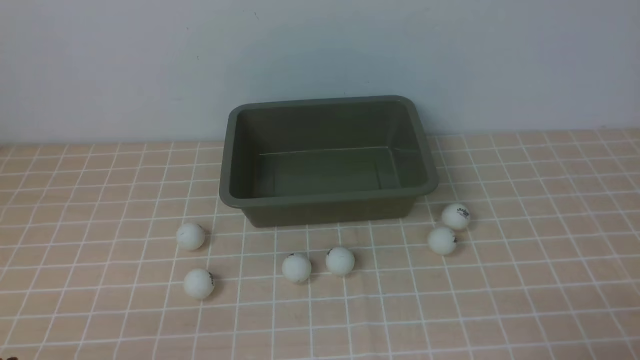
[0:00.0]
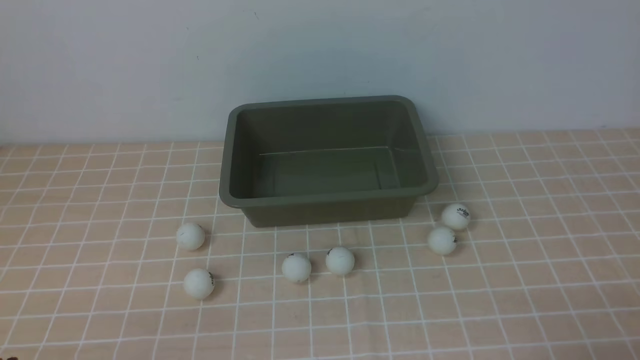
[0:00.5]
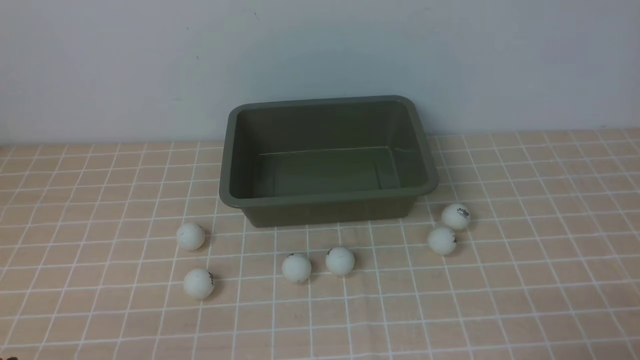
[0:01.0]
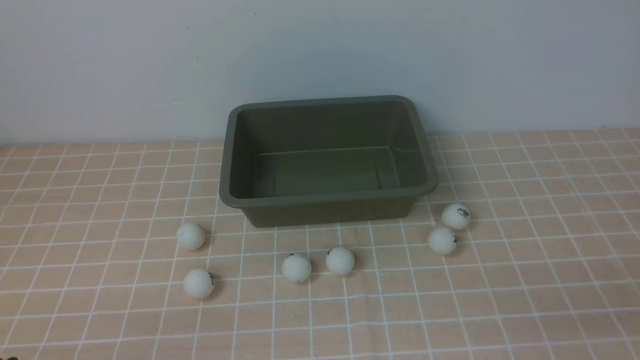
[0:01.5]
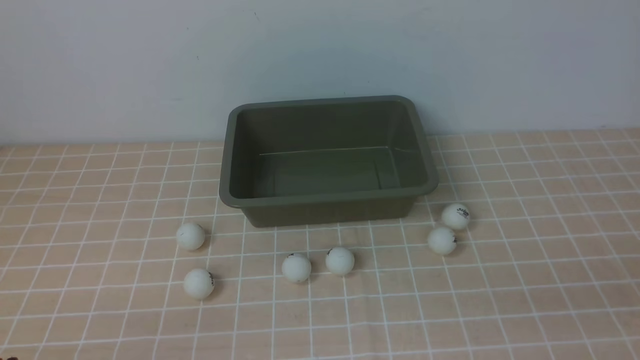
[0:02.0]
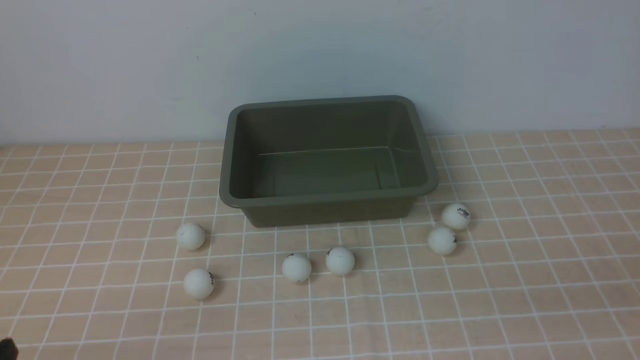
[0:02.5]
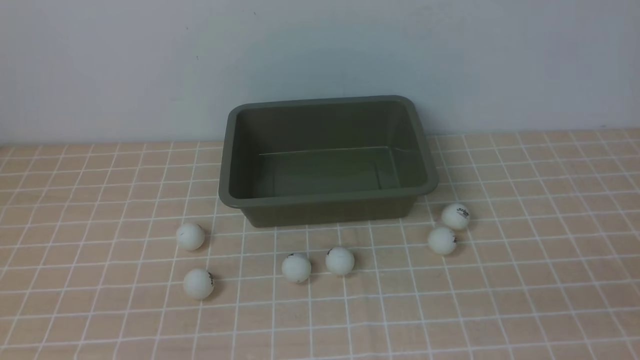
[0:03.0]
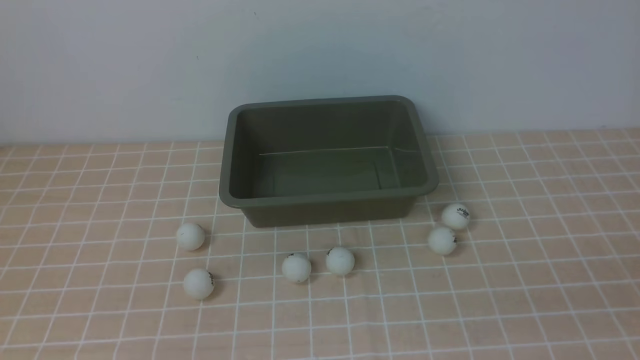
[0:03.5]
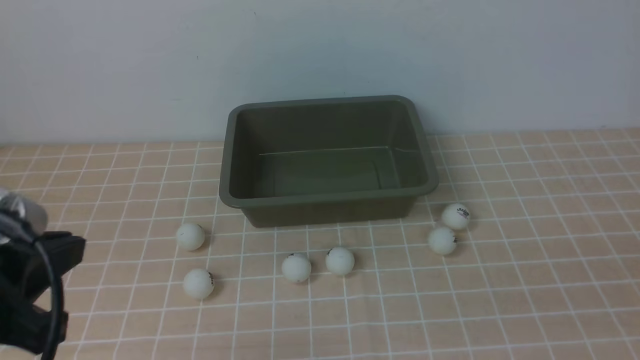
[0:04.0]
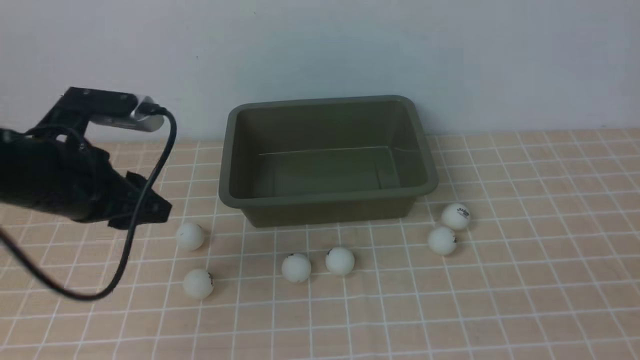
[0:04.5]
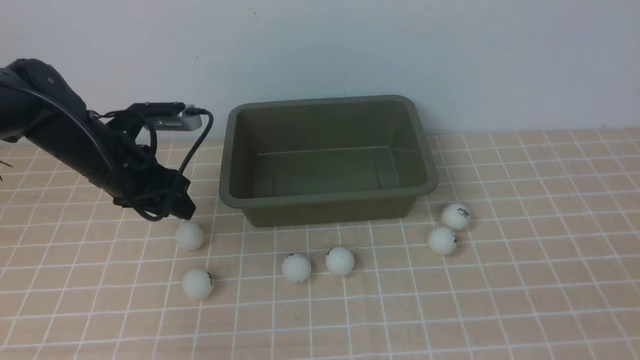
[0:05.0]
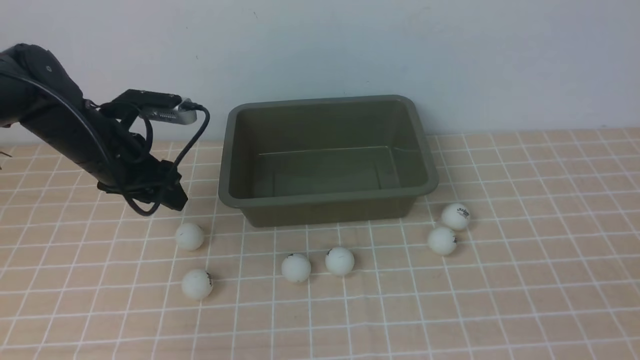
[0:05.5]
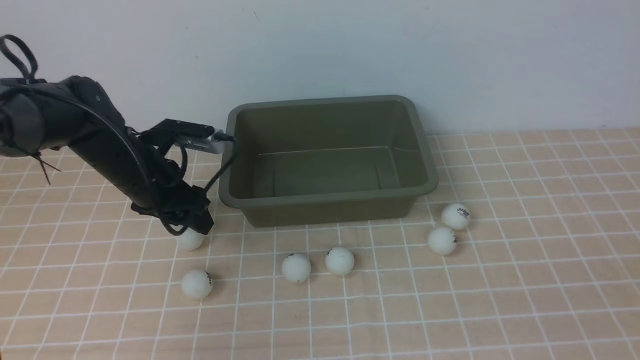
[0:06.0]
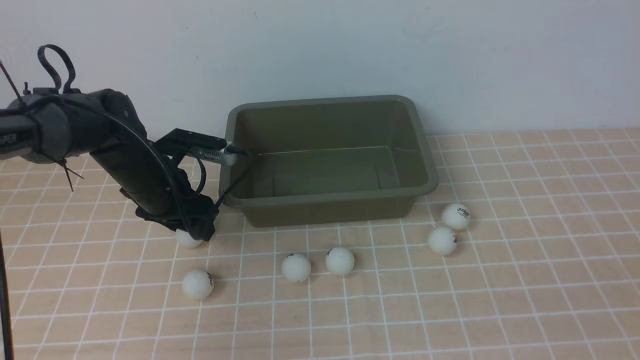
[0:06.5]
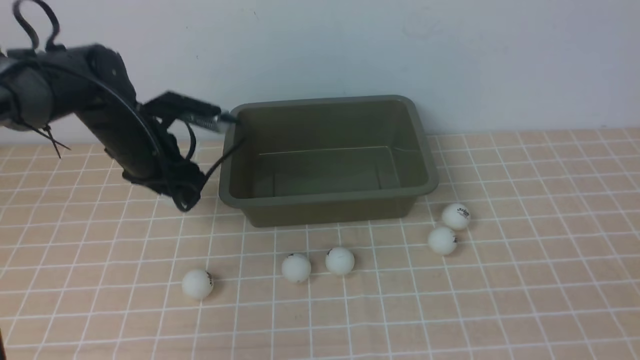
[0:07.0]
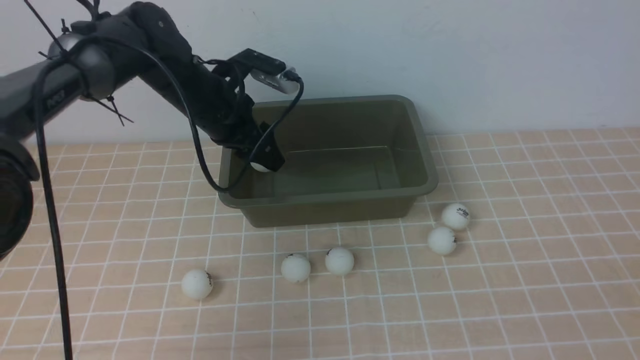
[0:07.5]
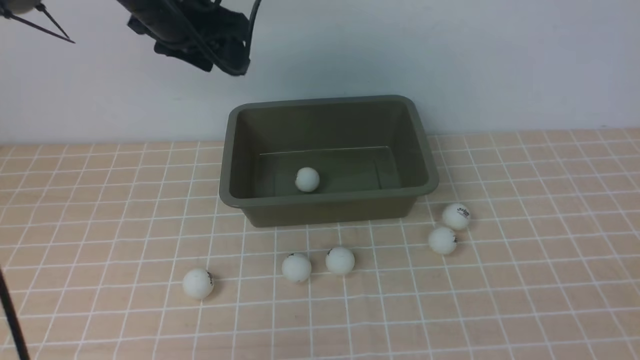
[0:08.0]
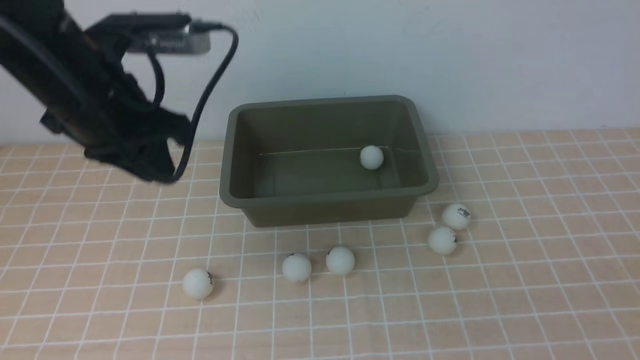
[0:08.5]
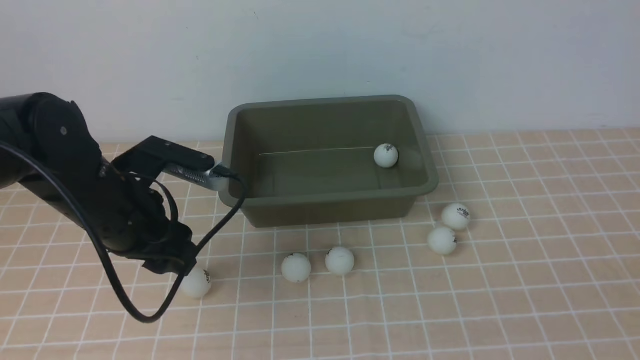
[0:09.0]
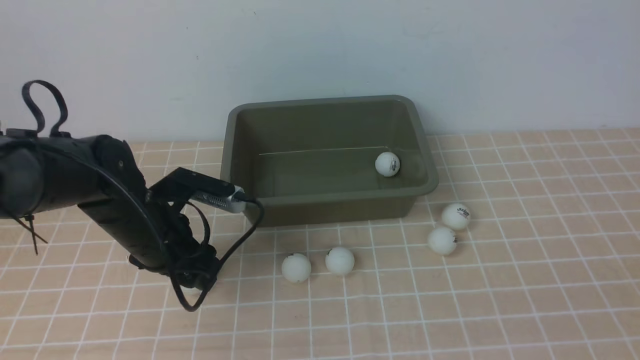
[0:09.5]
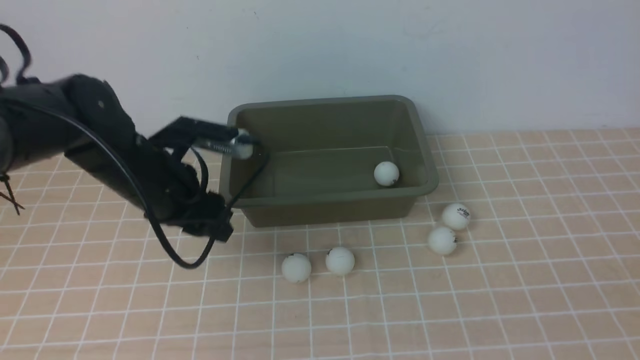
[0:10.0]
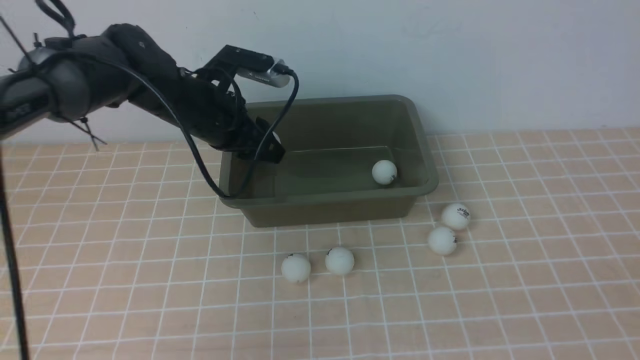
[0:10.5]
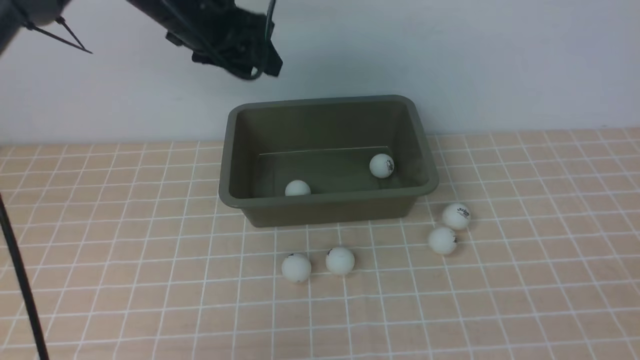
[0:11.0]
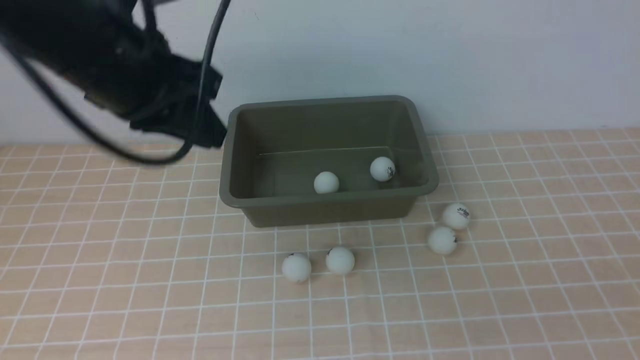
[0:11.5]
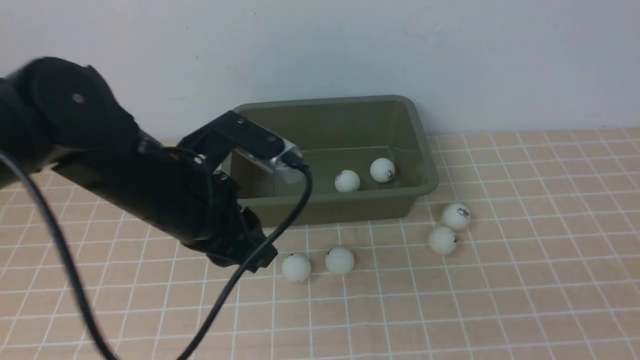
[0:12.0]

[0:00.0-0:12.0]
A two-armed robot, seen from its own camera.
Step, 0:00.0 to 0:06.5: use the left arm to clamp the table tennis ball closest to it.
Step, 0:08.0 to 0:09.5: use the left arm to clamp the table tennis ball closest to it.
Step, 0:10.0 to 0:10.5: use the left arm to put the table tennis ball into the box.
0:02.0 to 0:04.0: The left gripper moves upward and forward, about 15 cm.
0:04.0 to 0:06.0: The left gripper is displaced forward and downward by roughly 30 cm, and opens.
0:06.0 to 0:08.0: The left gripper goes approximately 20 cm upward.
0:08.0 to 0:10.0: The left gripper heads downward and backward, covering about 15 cm, and closes and opens again.
0:10.0 to 0:12.0: The left gripper shifts roughly 10 cm backward and upward, and closes.

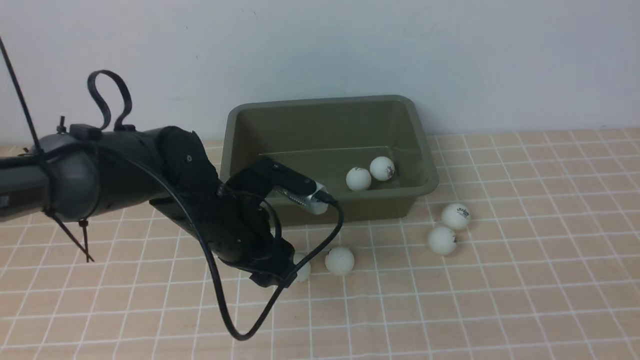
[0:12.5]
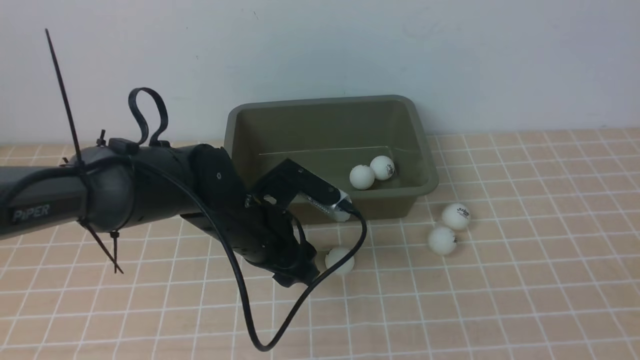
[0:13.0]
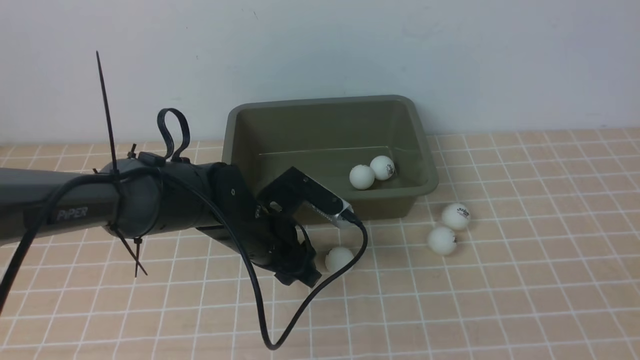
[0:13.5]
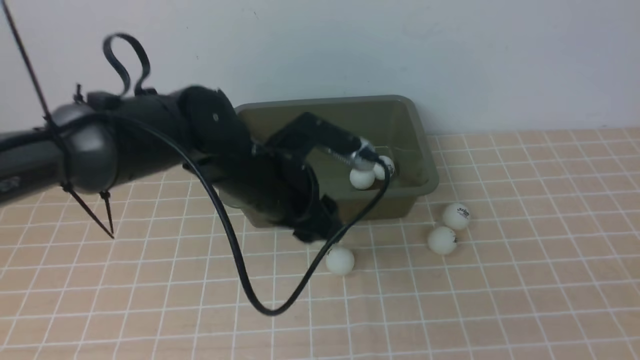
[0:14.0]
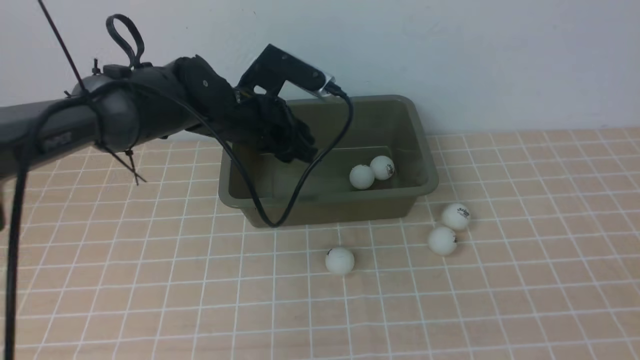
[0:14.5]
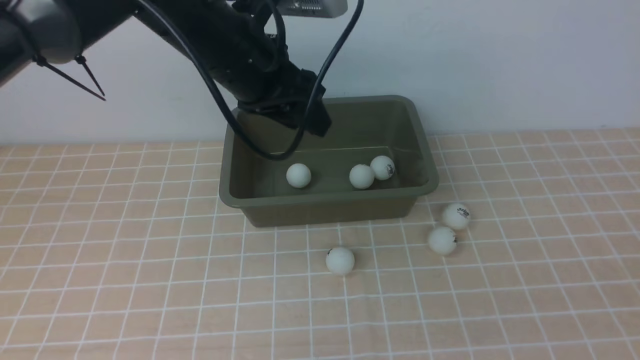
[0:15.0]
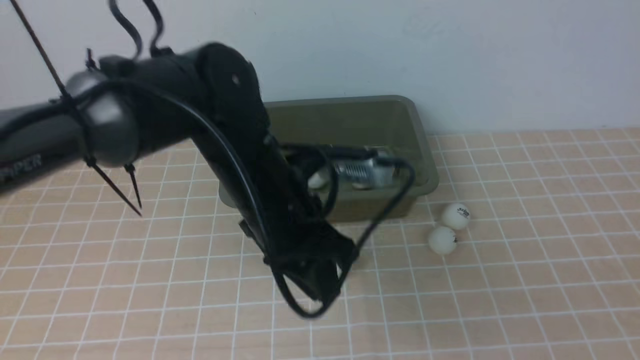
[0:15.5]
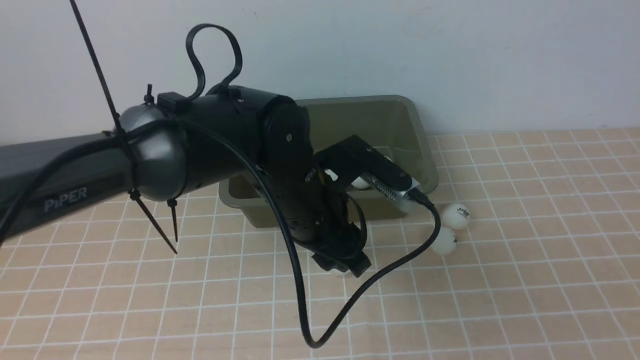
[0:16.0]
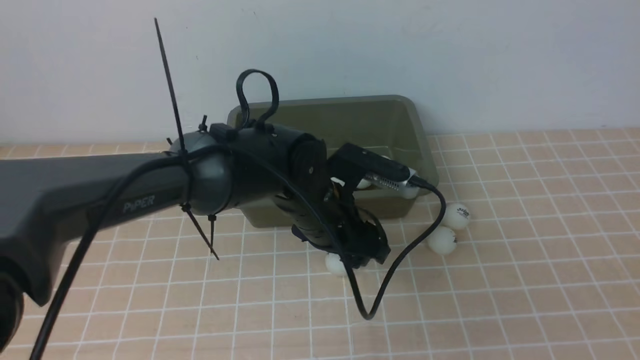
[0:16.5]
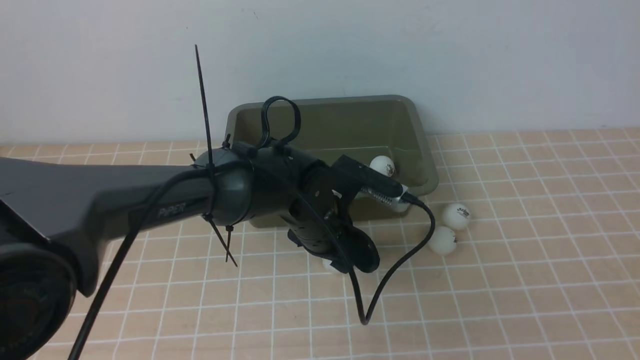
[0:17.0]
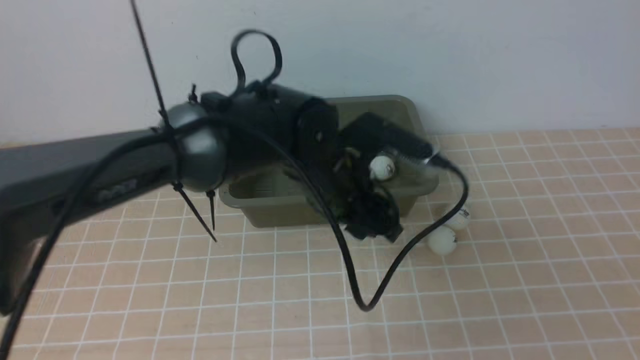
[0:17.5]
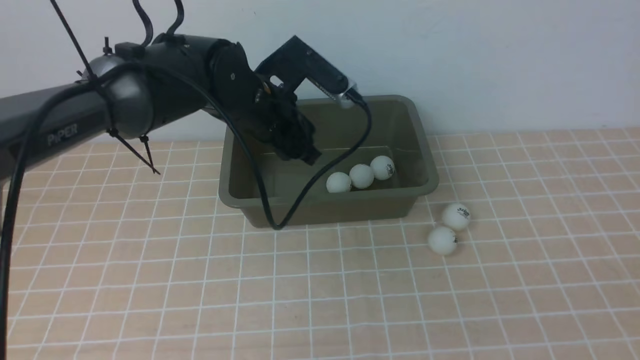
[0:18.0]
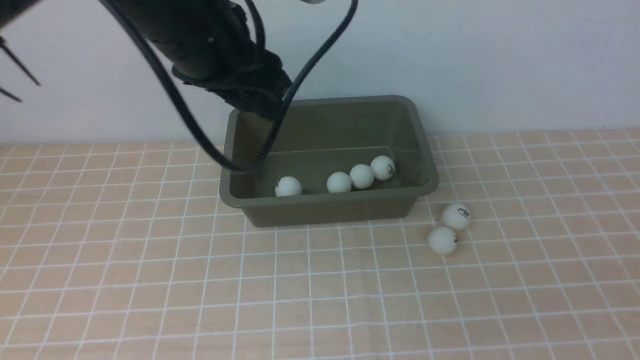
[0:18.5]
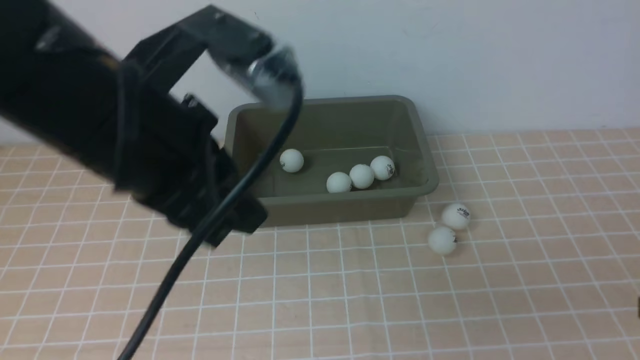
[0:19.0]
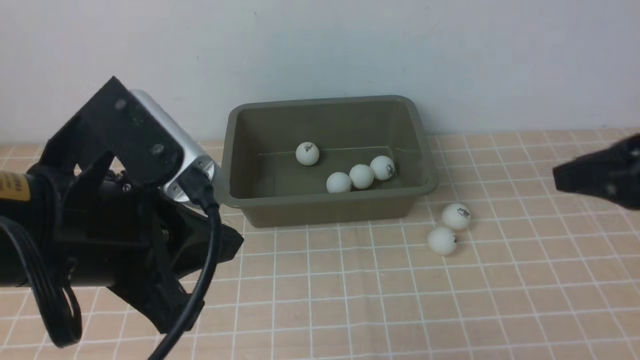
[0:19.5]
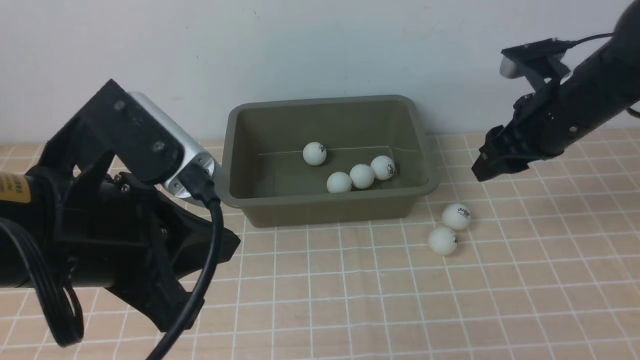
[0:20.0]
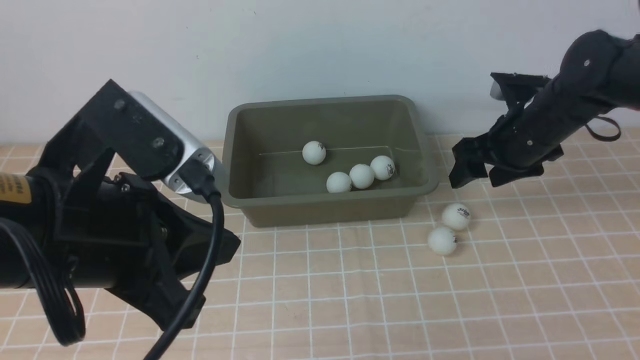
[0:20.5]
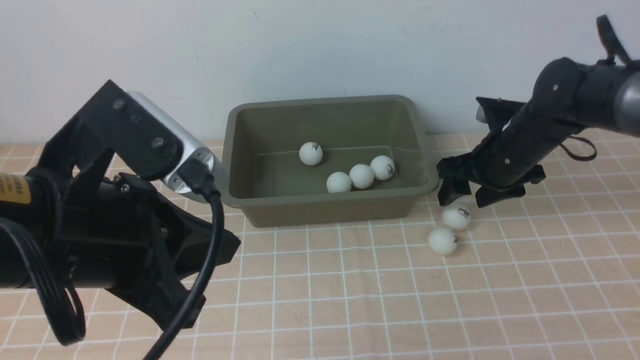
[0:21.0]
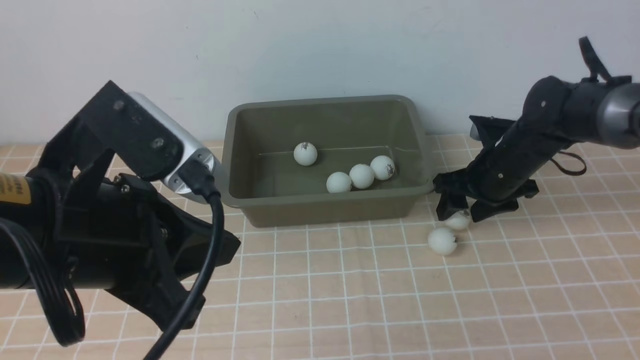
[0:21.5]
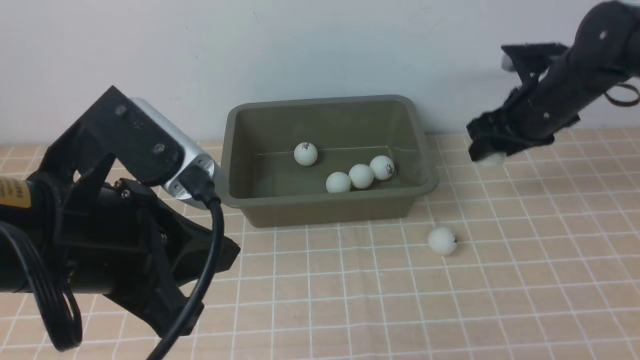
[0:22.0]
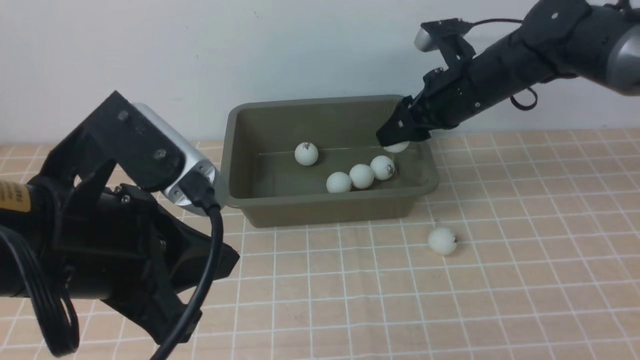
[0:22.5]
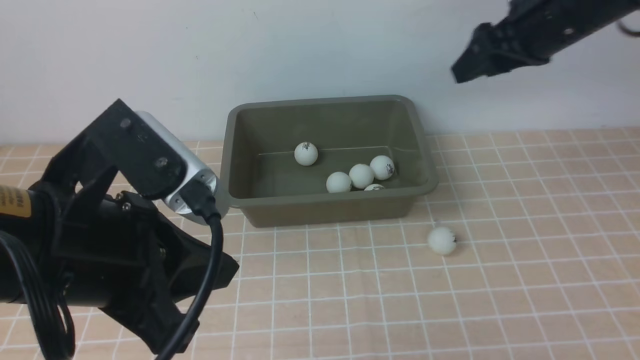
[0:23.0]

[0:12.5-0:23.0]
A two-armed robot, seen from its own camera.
Step, 0:12.5 to 0:14.0: use the left arm to clamp the table tennis ball closest to it.
Step, 0:15.0 to 0:17.5: use the left arm to clamp the table tennis ball closest to it.
Step, 0:19.0 to 0:21.5: use the right arm to clamp the table tennis ball closest to it.
Step, 0:22.0 to 0:22.5: use the right arm to put the table tennis ball into the box.
0:12.5 to 0:14.5: The left gripper travels forward and upward by about 10 cm.
0:14.5 to 0:16.5: The left gripper shifts approximately 15 cm backward, to the right and downward, and closes, then reopens.
0:16.5 to 0:19.0: The right gripper ends up about 5 cm from where it was, while the left gripper heads upward, backward and to the left, covering approximately 25 cm, and closes up.
0:19.0 to 0:21.0: The right gripper heads forward, covering roughly 35 cm, and opens its fingers. Meanwhile the left gripper ends up approximately 5 cm from where it was.
0:21.0 to 0:23.0: The right gripper moves upward, some 15 cm.